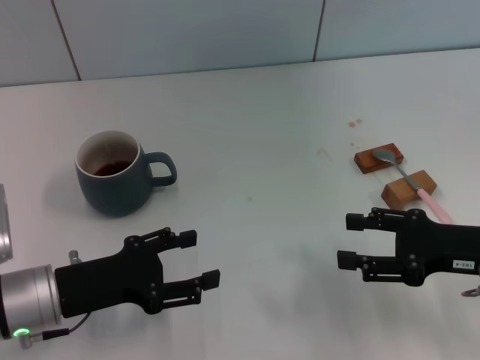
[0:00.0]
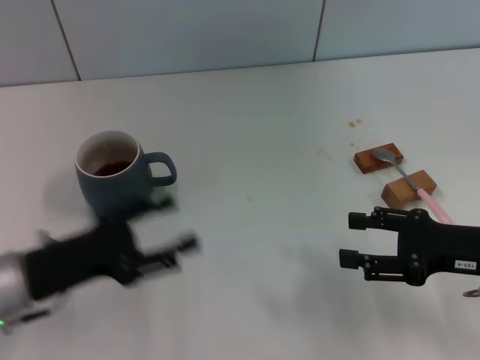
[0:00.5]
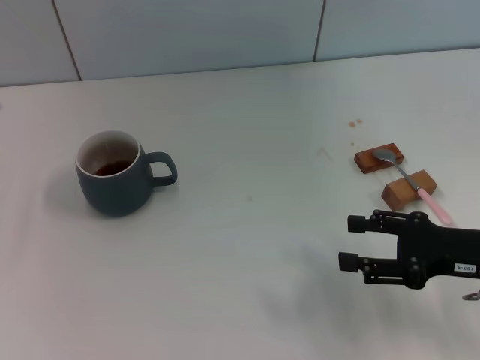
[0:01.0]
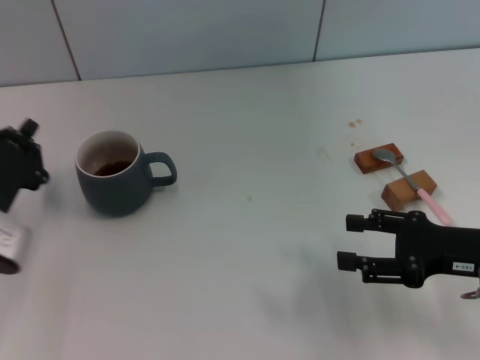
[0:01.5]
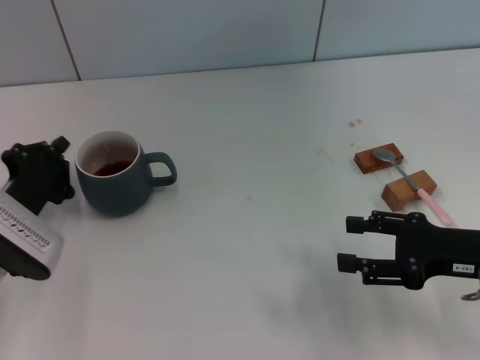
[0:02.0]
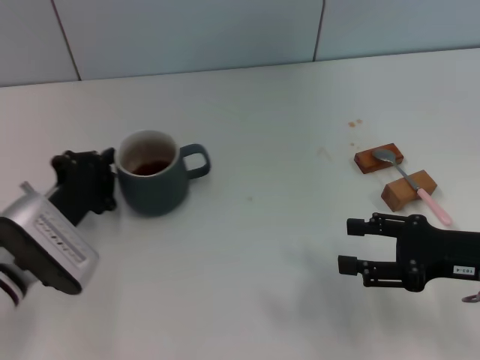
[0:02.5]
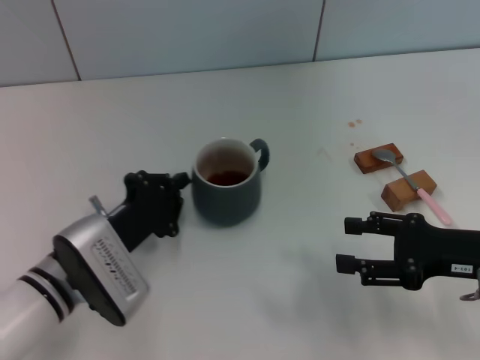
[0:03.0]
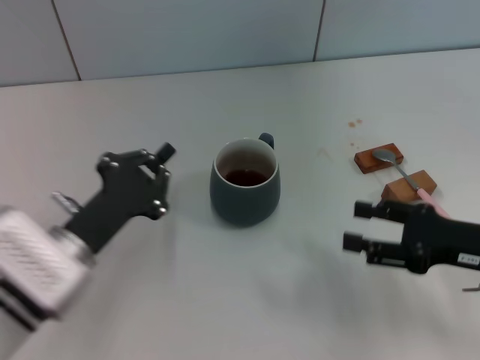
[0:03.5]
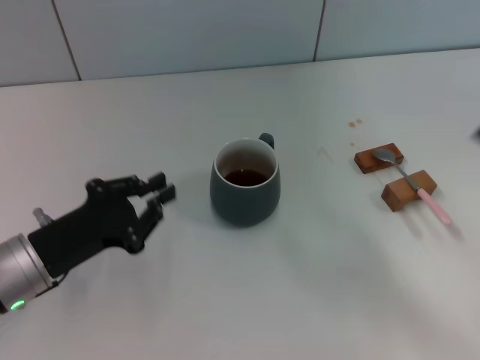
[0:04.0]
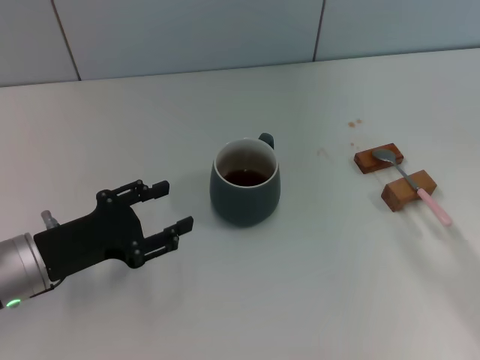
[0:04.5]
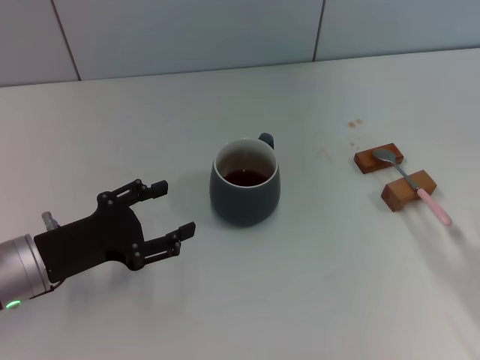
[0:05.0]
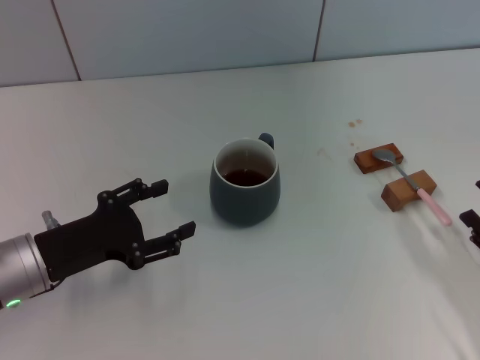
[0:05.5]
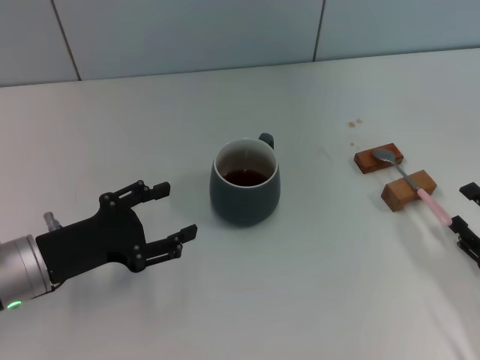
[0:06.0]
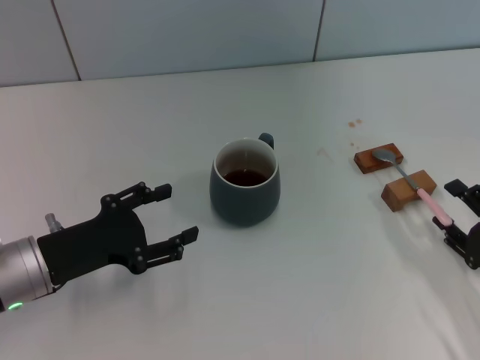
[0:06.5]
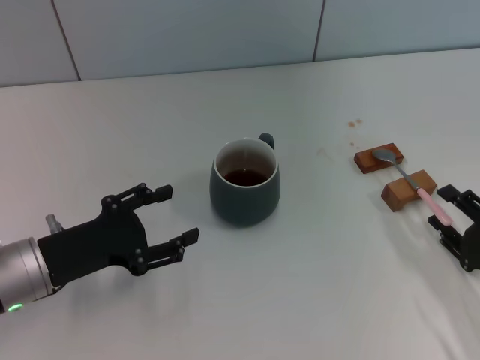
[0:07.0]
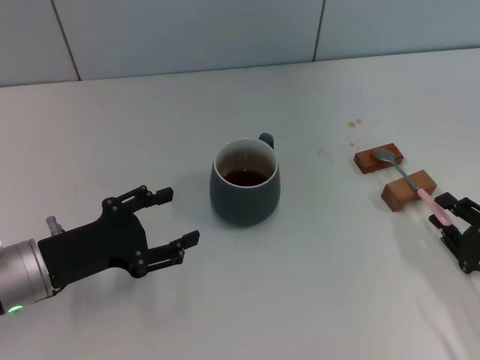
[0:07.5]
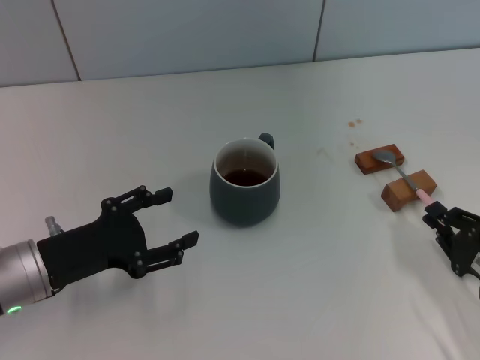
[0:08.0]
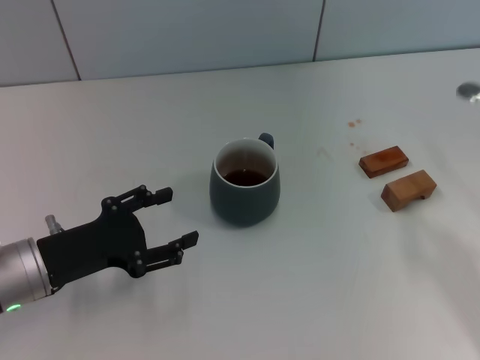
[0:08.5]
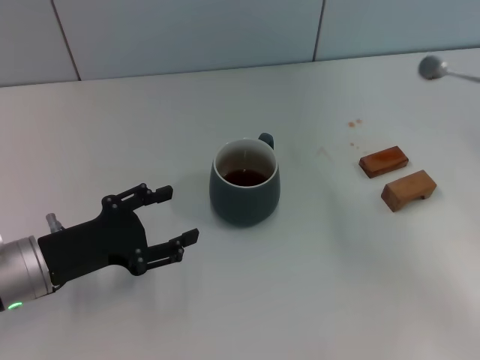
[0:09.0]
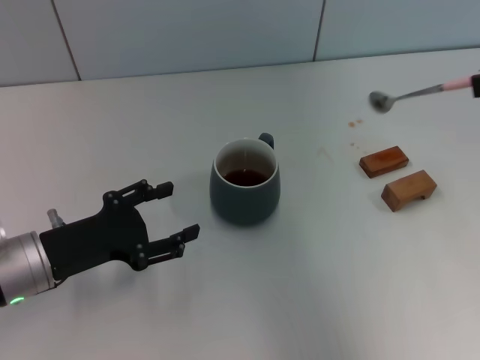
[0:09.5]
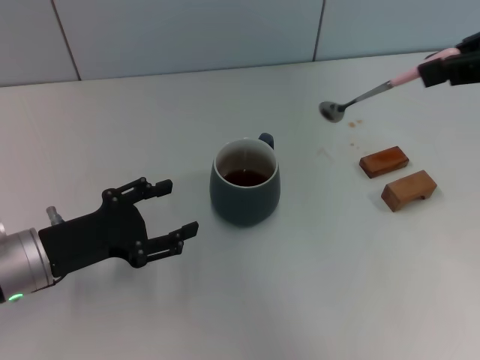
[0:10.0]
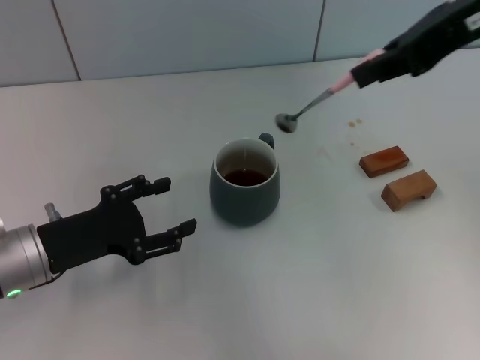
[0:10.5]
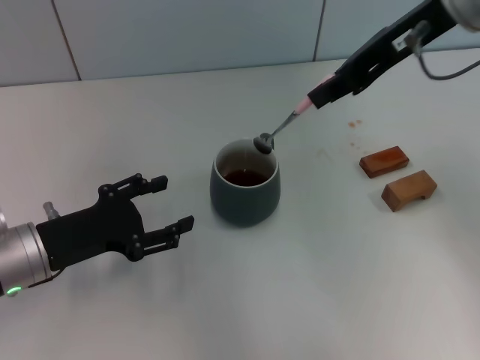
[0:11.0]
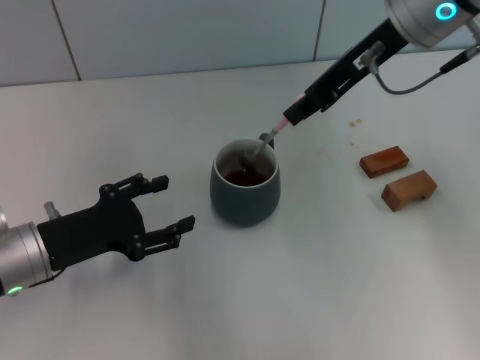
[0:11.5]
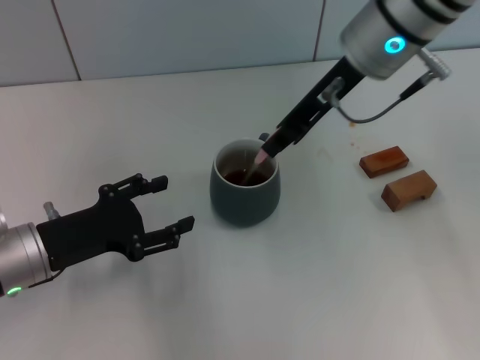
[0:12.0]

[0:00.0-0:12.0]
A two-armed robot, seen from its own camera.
Task of the whole recording: Move the grey cup to the center, lift the pink spoon, stir it three times in the cup, and put the spoon into the cup.
Step, 0:00.0 to 0:03.0: Move the cup with coffee to the center of view with the left gripper.
Step, 0:03.5 to 0:08.0: Pick up the spoon with the right gripper.
0:00.0 to 0:02.0: The left gripper travels to the left and back again, some 10 cm each way, and closes its fingers.
0:02.0 to 0:04.0: The left gripper moves roughly 10 cm to the right and comes back; the right gripper moves to the right and backward, about 10 cm.
0:04.0 to 0:06.0: The left gripper opens. The right gripper shifts roughly 10 cm downward.
0:06.0 to 0:08.0: The right gripper closes.
0:08.0 to 0:10.0: The right gripper heads upward, covering about 35 cm.
0:10.0 to 0:12.0: The right gripper is displaced to the left, forward and downward by some 20 cm.

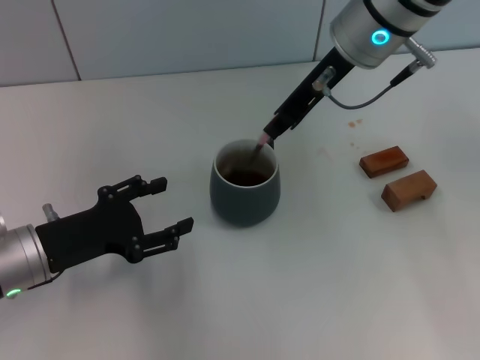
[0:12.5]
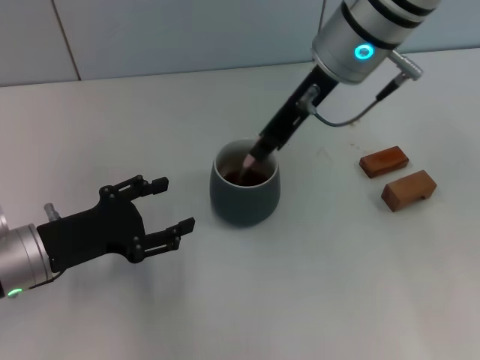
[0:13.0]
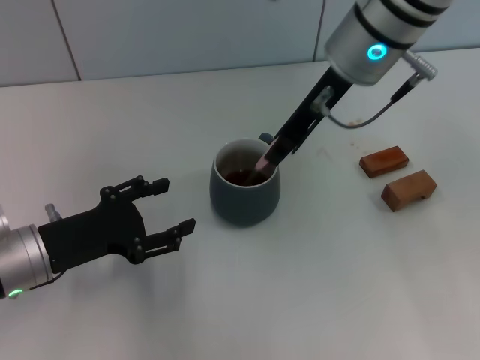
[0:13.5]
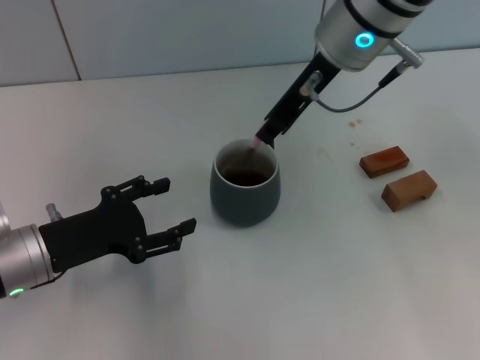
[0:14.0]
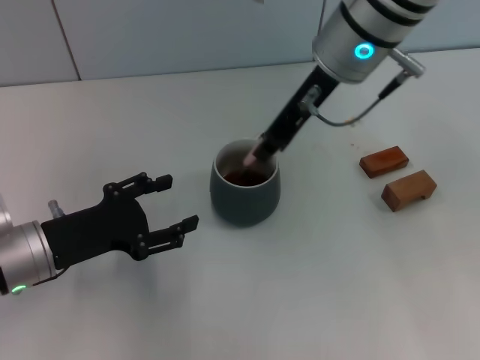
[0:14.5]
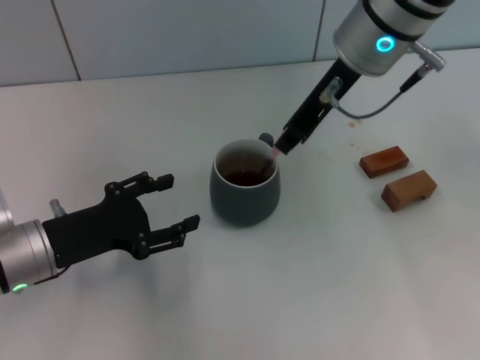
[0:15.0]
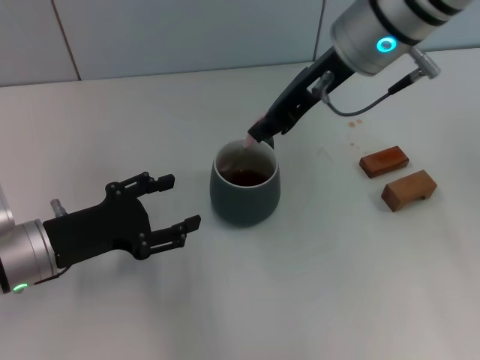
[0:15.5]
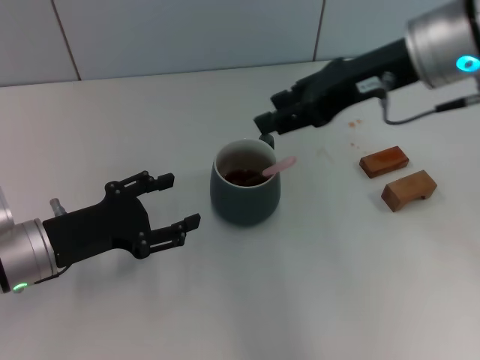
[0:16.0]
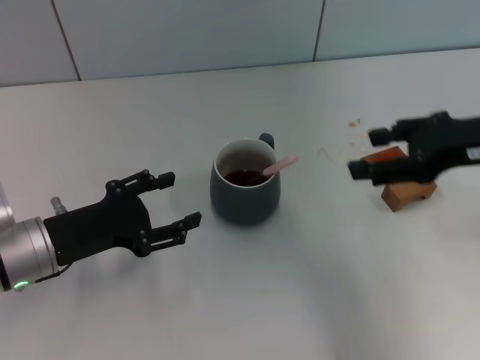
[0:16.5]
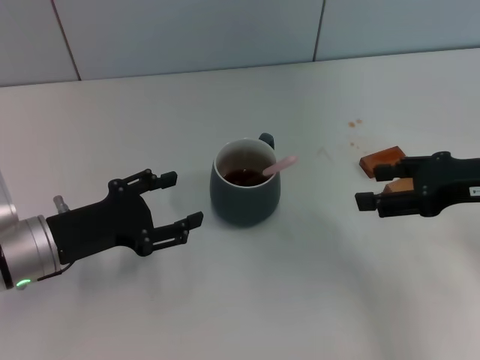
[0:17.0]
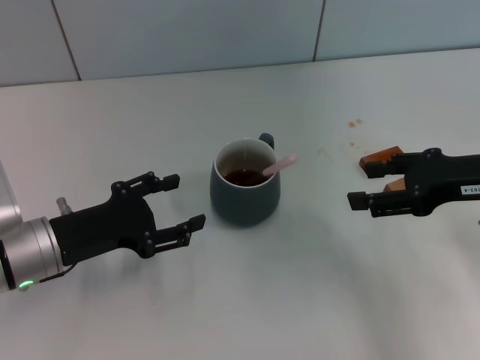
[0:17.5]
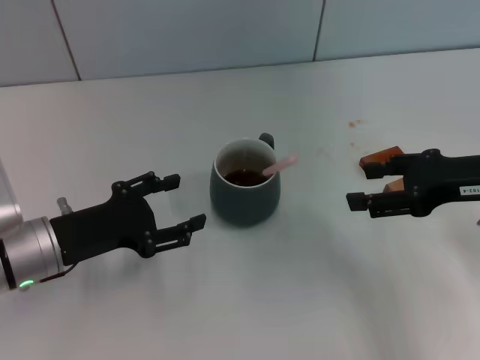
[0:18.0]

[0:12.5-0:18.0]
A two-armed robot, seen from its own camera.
Task of the whole recording: Move the grey cup to the center, lift the pink spoon, stir it three times in the cup, and put the spoon into the cup.
Step, 0:12.5 to 0:15.5: Stir the coffee in the cup with the right gripper.
0:12.5 to 0:14.5: There are only small adjustments of the grippers.
0:14.5 to 0:16.0: The right gripper travels to the right by about 10 cm, and opens its fingers.
0:16.0 to 0:18.0: The right gripper heads to the right, downward and backward, covering some 15 cm, and opens.
